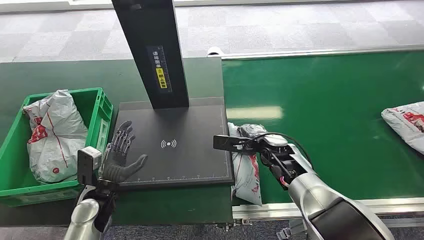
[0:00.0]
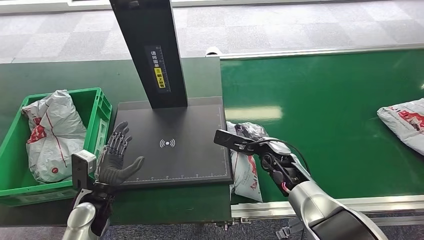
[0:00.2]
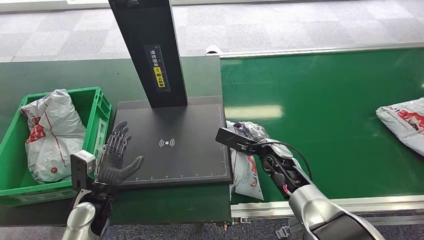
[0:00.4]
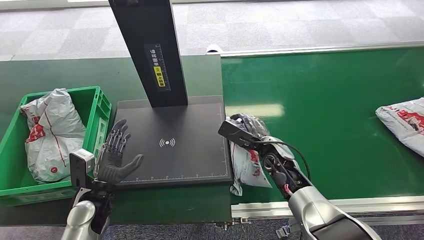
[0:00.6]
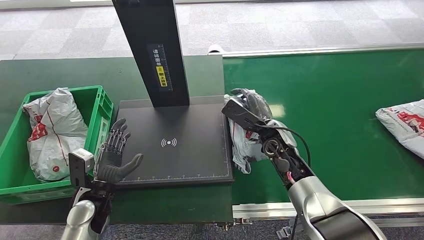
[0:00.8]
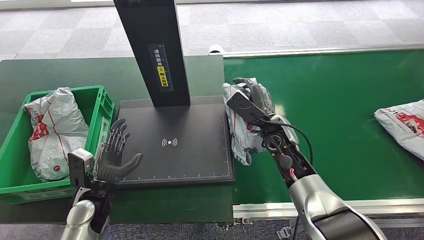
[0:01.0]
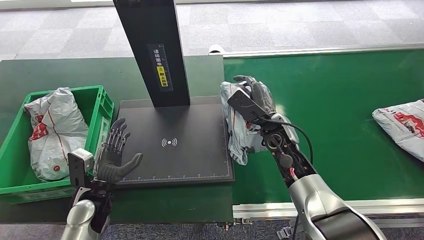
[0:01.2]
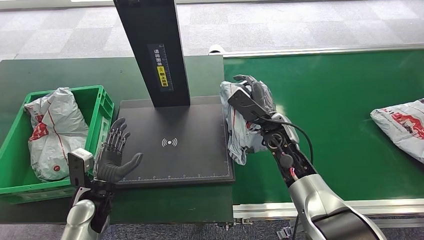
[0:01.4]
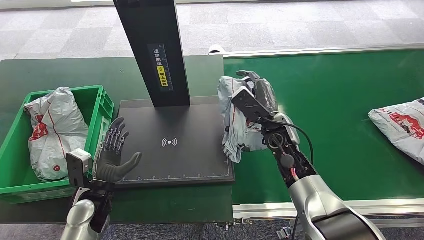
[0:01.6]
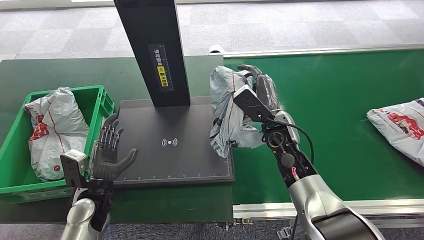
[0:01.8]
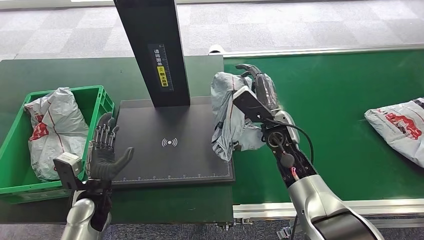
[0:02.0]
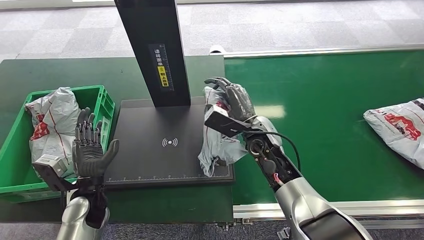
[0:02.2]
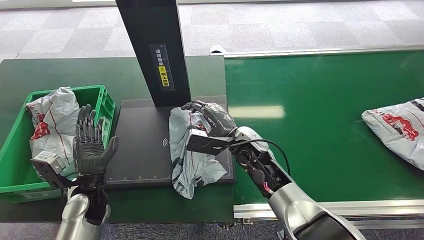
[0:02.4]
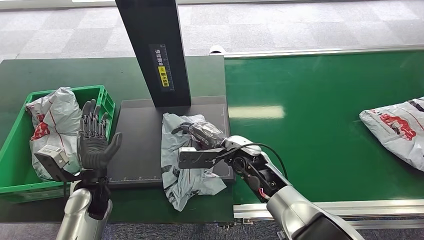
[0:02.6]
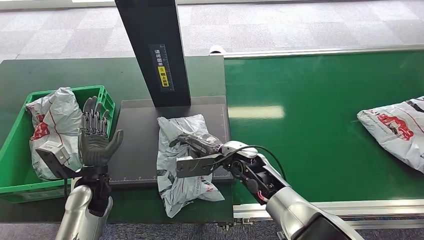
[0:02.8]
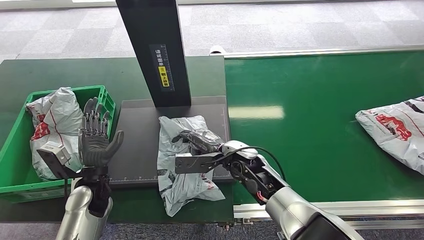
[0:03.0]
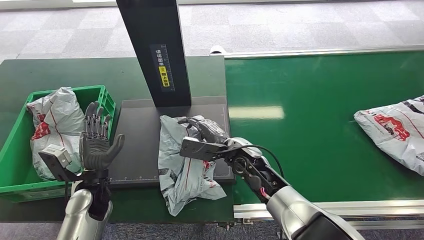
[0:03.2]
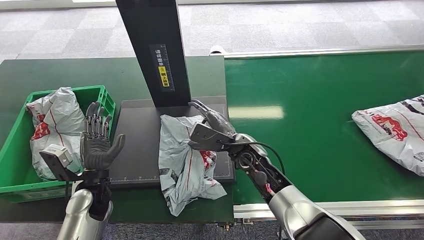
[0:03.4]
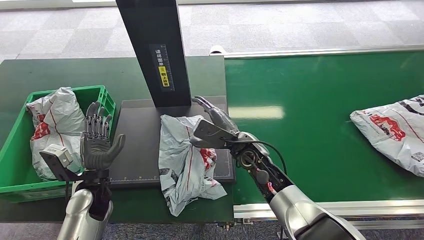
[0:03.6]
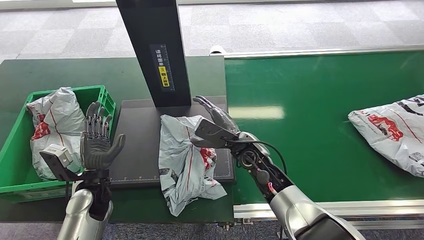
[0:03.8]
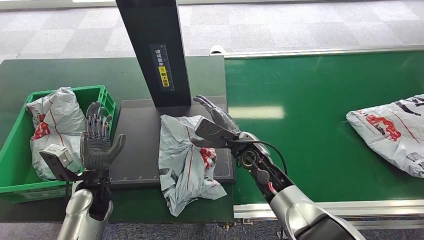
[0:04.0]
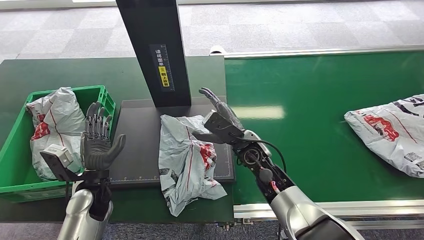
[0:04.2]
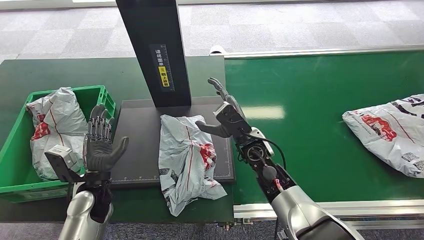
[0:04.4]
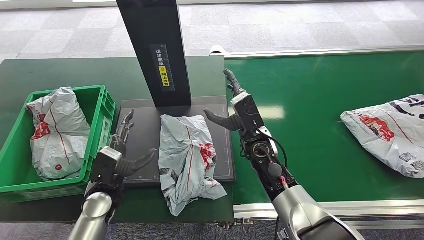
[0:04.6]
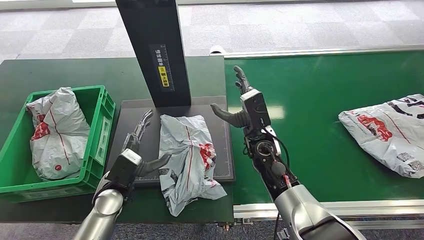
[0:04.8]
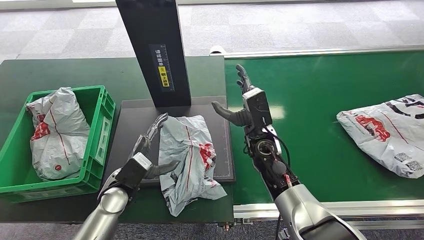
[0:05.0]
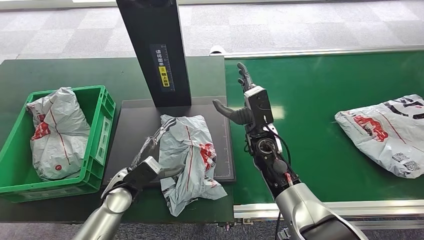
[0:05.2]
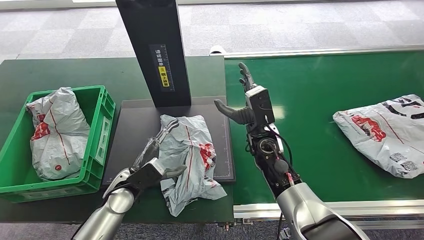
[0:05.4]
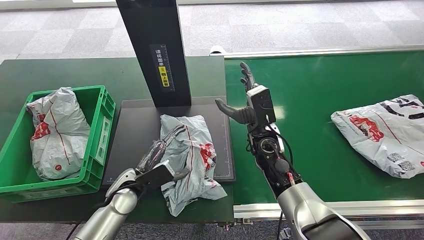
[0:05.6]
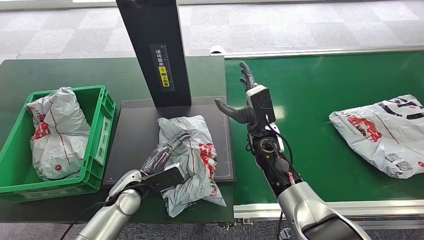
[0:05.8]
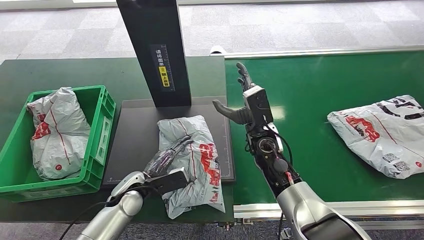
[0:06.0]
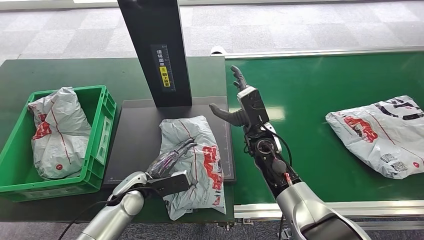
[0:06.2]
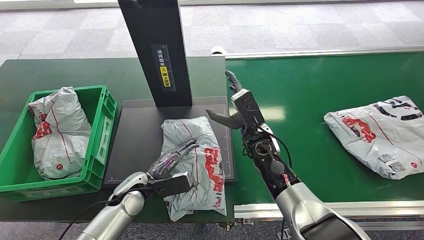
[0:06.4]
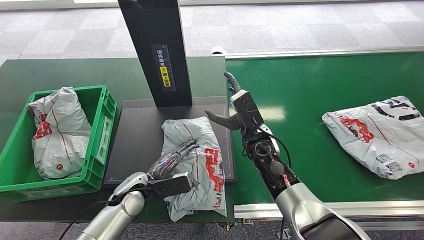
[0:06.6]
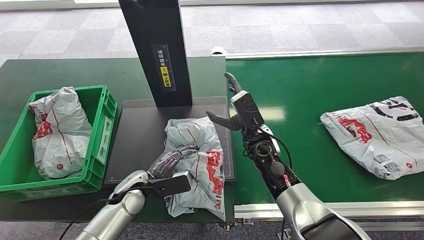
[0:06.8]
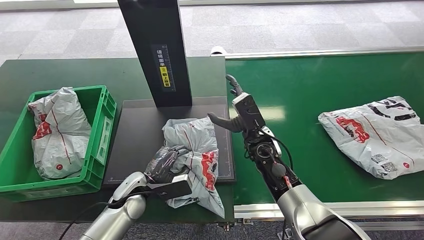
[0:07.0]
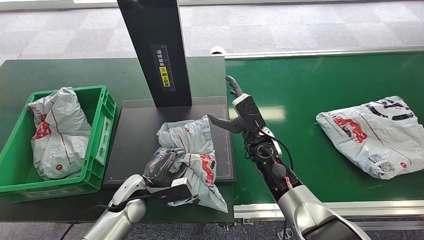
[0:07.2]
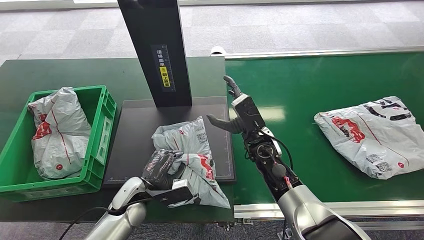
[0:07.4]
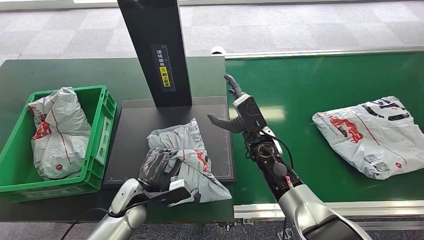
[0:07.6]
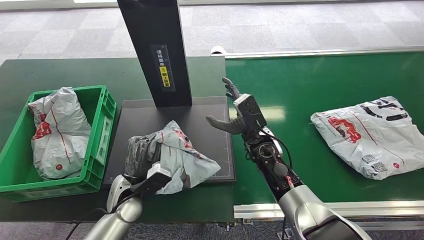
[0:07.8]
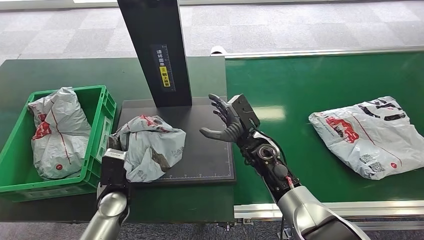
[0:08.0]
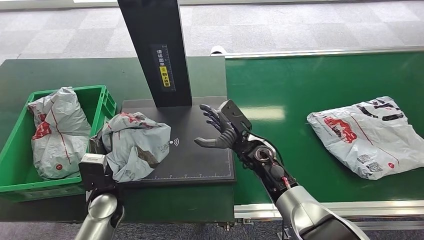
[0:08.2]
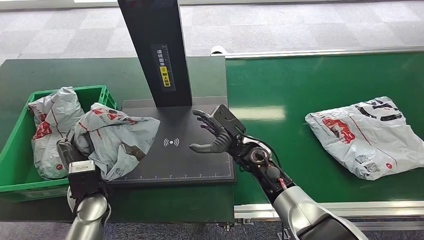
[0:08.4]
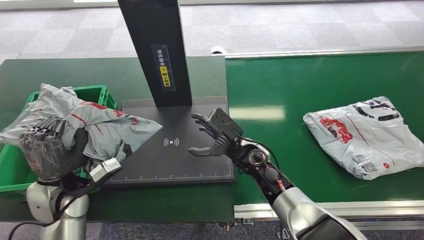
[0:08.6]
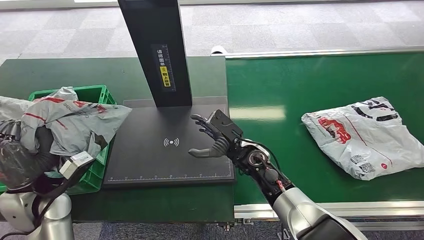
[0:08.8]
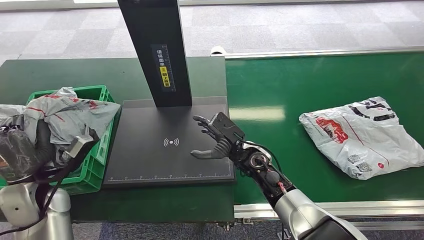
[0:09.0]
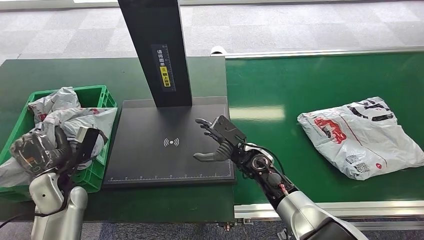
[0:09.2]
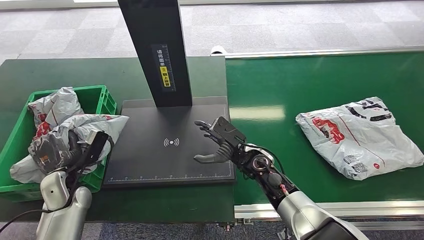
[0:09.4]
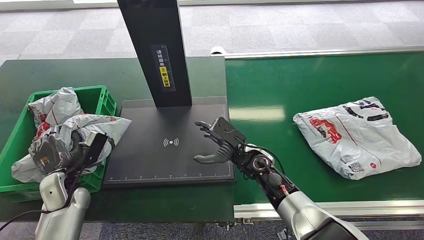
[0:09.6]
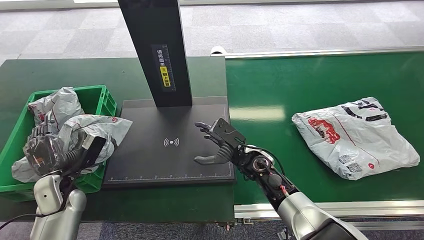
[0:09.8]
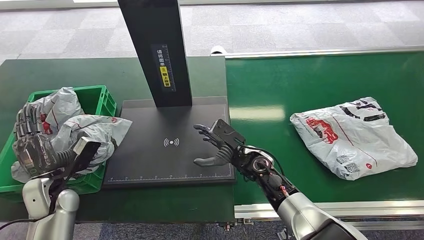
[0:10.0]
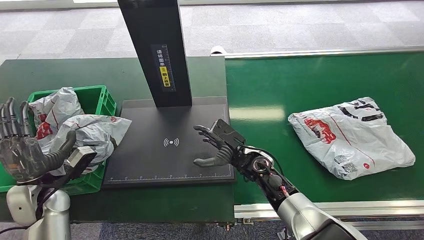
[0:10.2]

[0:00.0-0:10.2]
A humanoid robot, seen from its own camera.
Step, 0:00.0 to 0:02.0: Pick up the package from the conveyor belt.
Step, 0:02.2 to 0:03.6: Place the package onto the inbound machine.
Step, 0:03.8 to 0:08.4: Pick up the package from the inbound machine.
Step, 0:08.6 to 0:10.2: Place the package into the parcel locker.
0:04.4 to 0:05.8: The left hand shifts about 5 cm to the right.
0:05.8 to 0:07.2: There are only small adjustments of the hands.

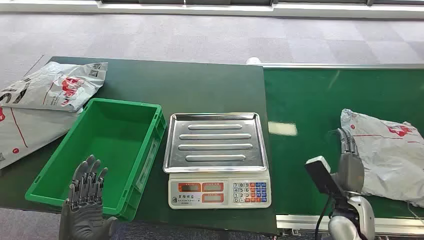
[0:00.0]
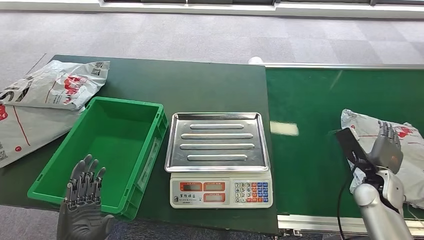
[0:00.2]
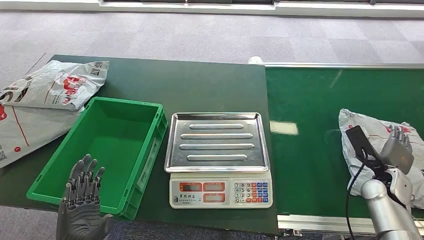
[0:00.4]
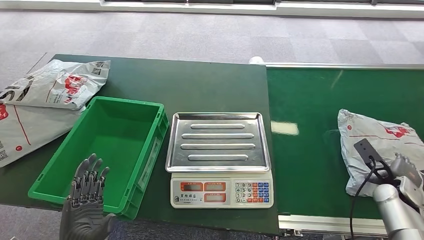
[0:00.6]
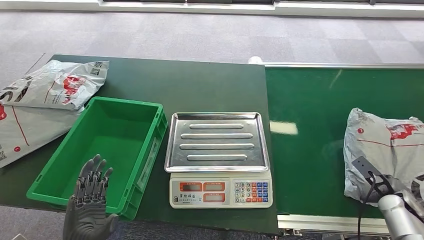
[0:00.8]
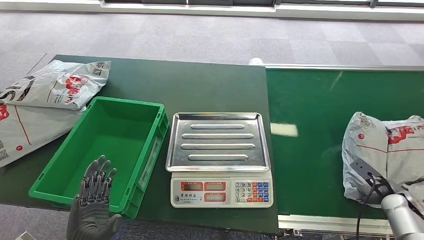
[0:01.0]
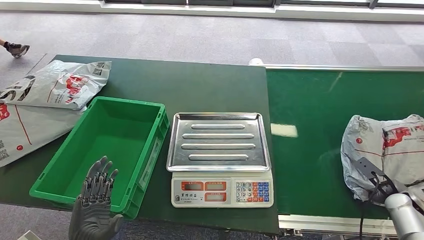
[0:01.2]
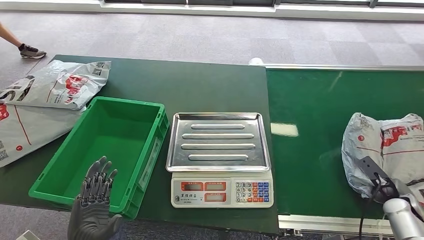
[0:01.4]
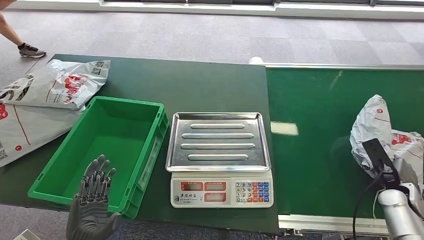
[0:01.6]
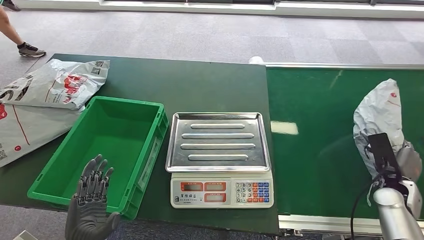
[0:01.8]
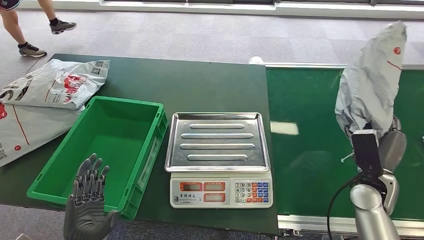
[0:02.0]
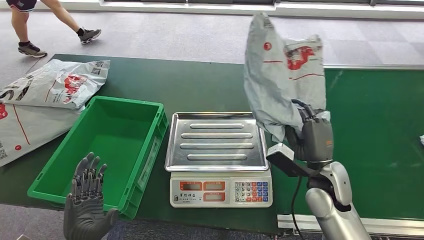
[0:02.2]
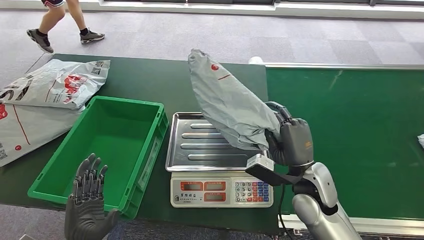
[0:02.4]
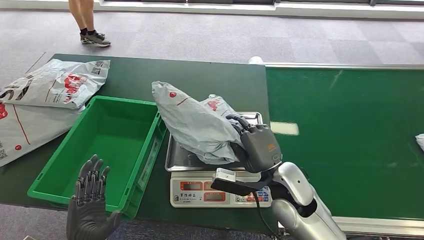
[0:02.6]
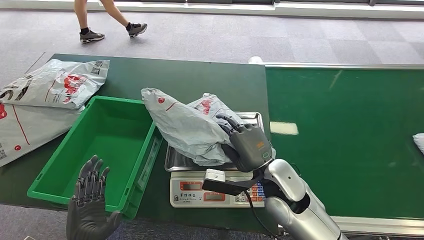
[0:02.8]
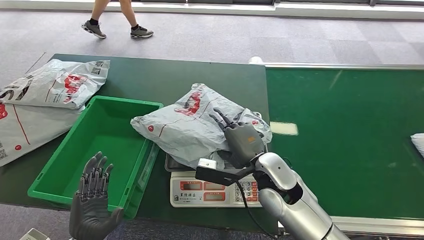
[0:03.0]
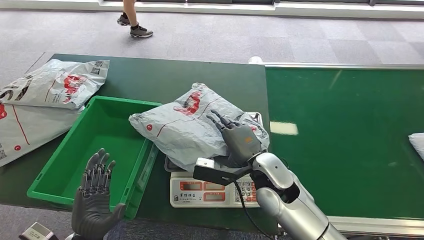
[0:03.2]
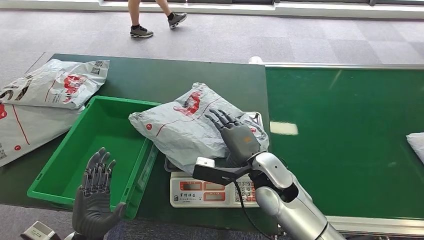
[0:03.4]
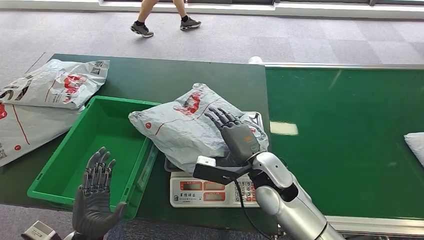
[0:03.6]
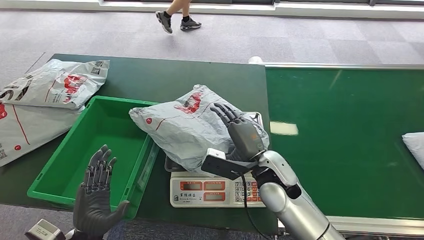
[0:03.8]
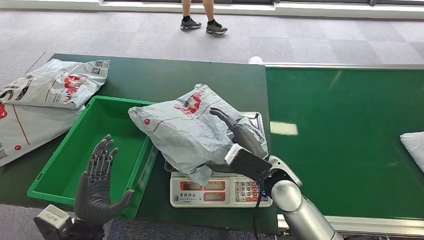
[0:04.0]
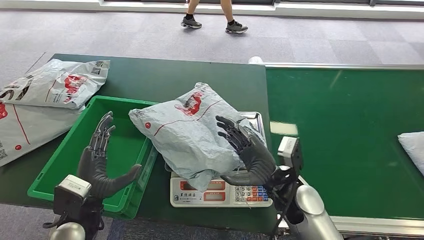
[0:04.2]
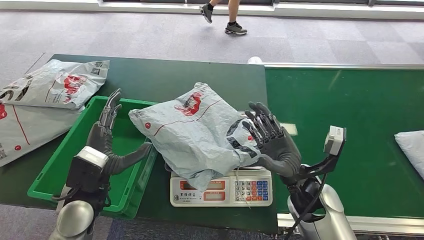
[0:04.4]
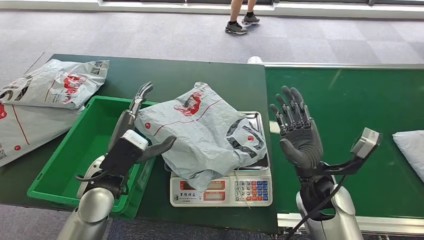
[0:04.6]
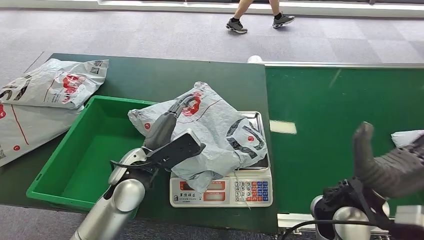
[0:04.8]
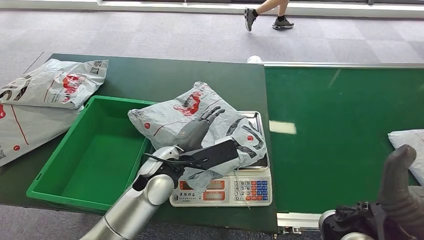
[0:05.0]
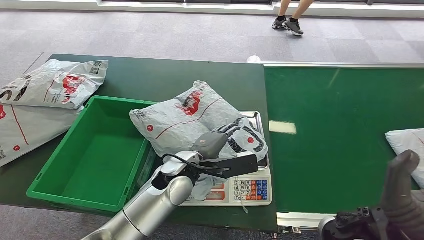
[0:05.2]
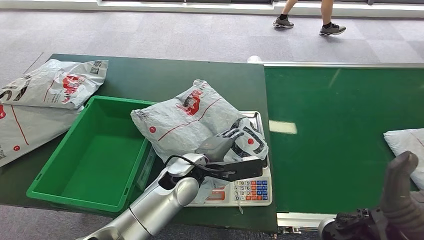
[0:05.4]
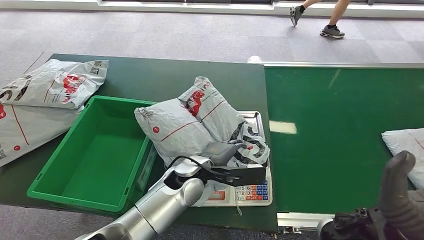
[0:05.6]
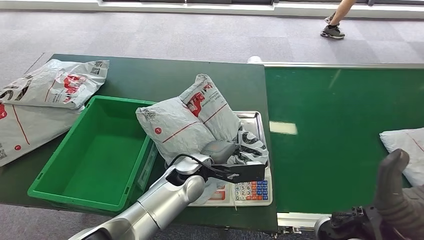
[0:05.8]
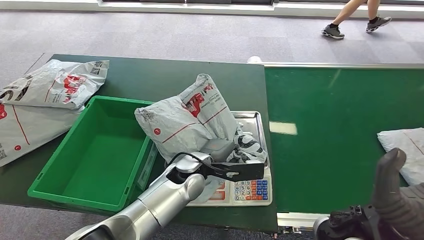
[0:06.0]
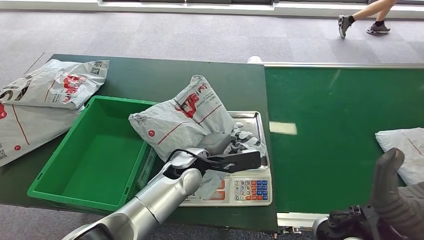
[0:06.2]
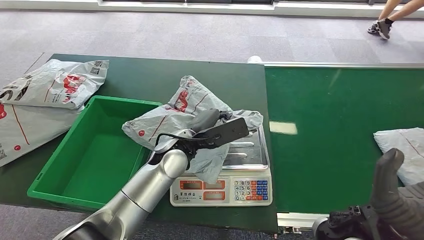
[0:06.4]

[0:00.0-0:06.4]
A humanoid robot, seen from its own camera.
Step, 0:00.0 to 0:02.0: Pick up the package from the conveyor belt.
Step, 0:02.2 to 0:04.0: Place the package onto the inbound machine.
